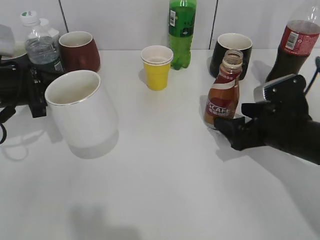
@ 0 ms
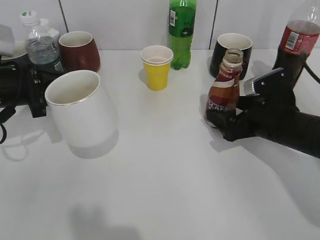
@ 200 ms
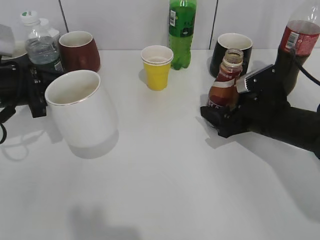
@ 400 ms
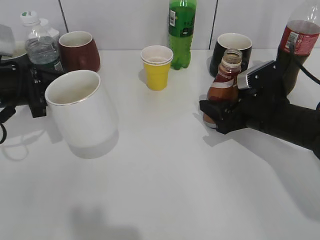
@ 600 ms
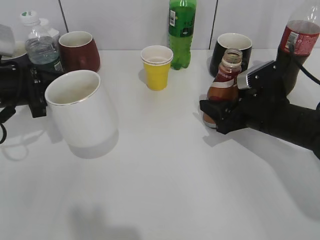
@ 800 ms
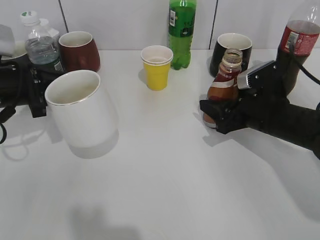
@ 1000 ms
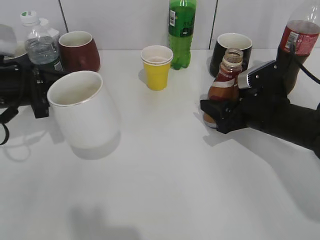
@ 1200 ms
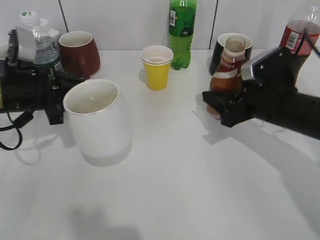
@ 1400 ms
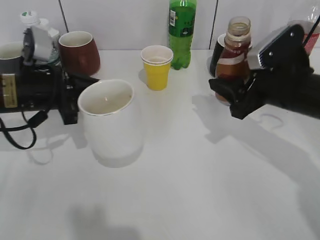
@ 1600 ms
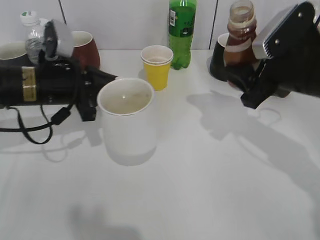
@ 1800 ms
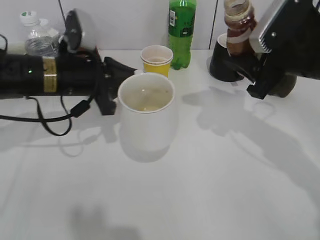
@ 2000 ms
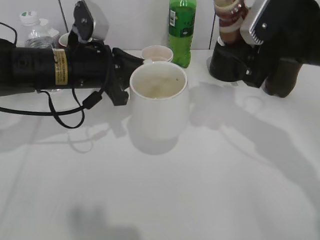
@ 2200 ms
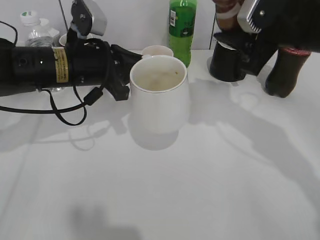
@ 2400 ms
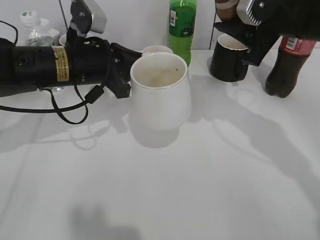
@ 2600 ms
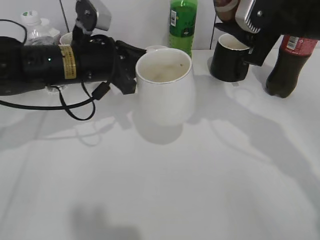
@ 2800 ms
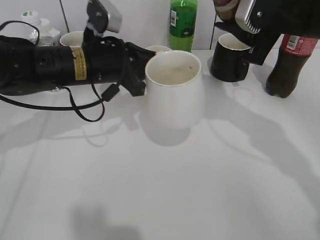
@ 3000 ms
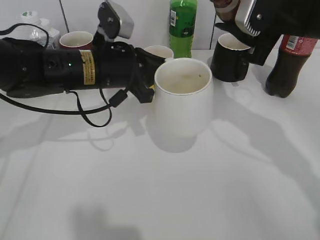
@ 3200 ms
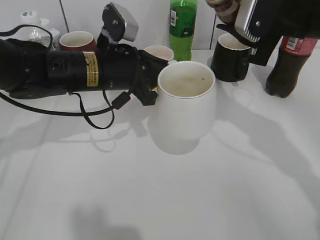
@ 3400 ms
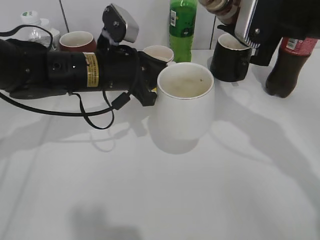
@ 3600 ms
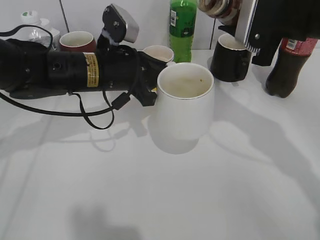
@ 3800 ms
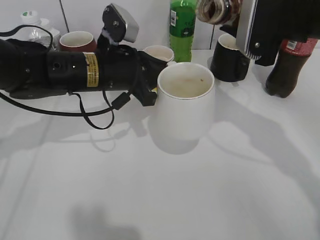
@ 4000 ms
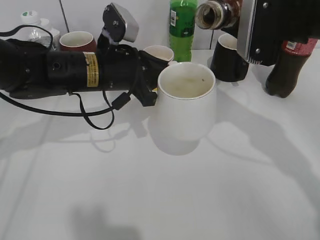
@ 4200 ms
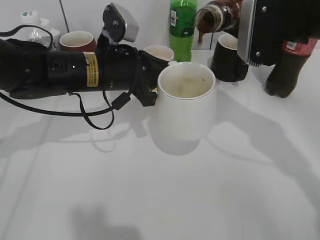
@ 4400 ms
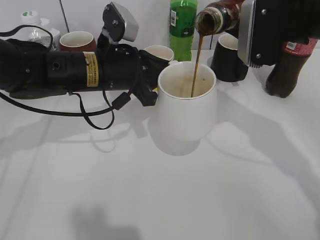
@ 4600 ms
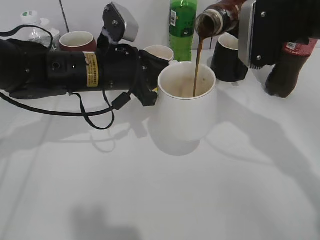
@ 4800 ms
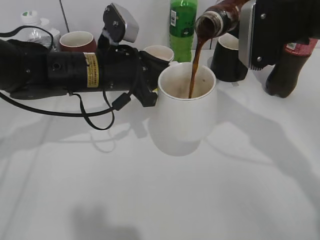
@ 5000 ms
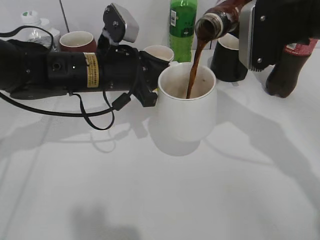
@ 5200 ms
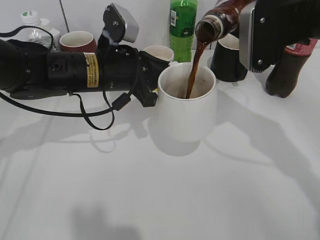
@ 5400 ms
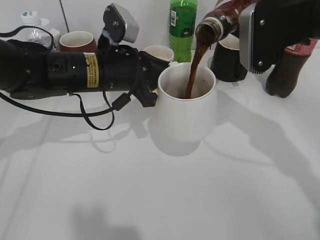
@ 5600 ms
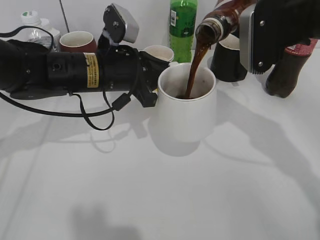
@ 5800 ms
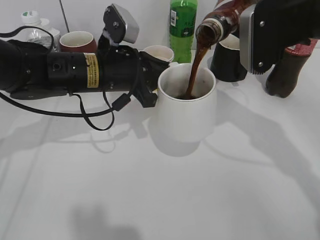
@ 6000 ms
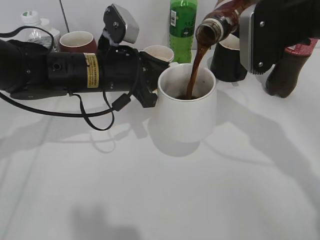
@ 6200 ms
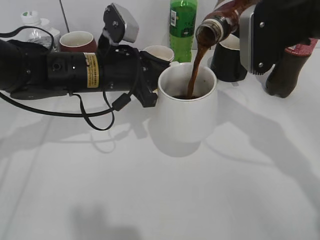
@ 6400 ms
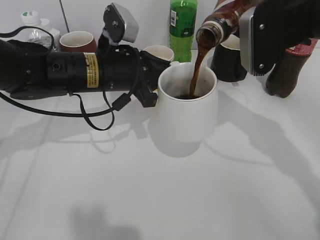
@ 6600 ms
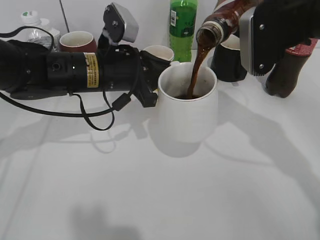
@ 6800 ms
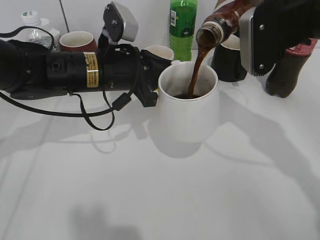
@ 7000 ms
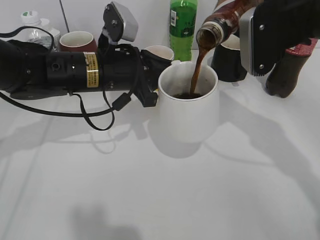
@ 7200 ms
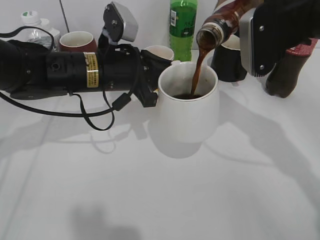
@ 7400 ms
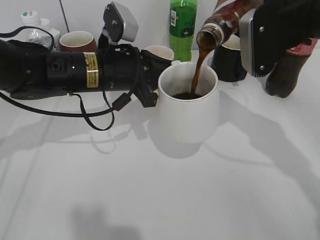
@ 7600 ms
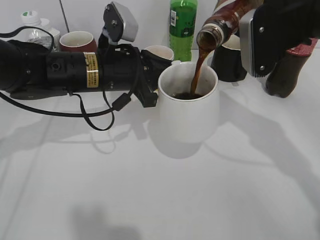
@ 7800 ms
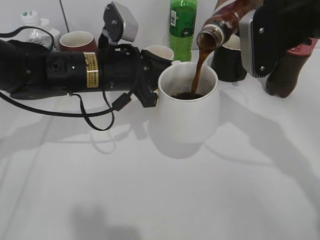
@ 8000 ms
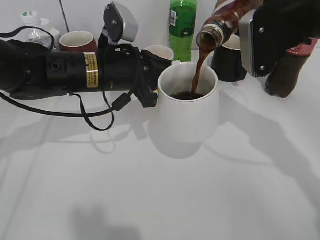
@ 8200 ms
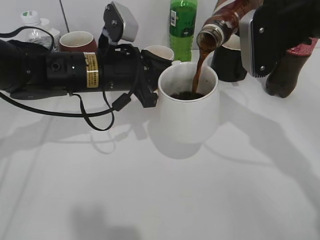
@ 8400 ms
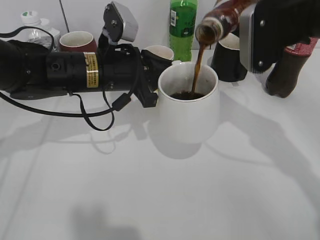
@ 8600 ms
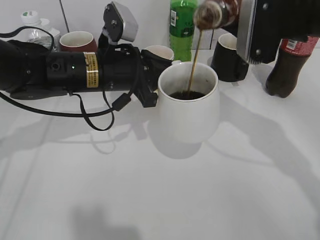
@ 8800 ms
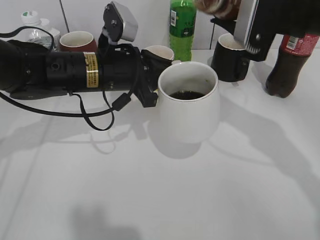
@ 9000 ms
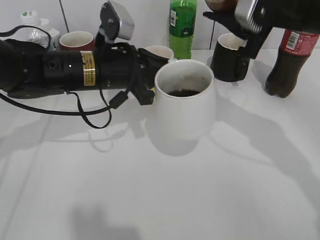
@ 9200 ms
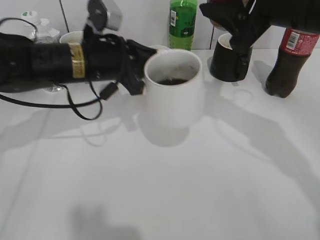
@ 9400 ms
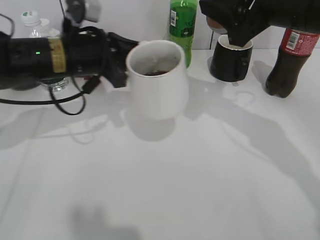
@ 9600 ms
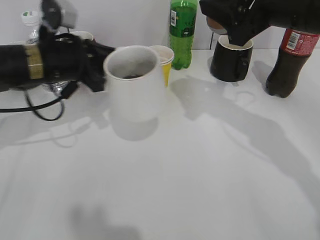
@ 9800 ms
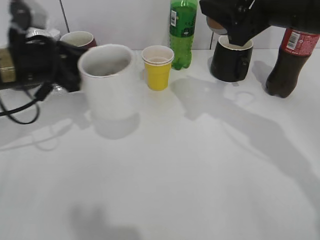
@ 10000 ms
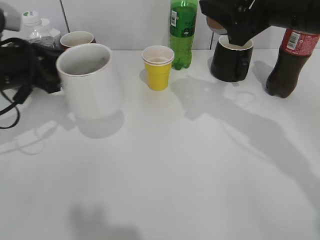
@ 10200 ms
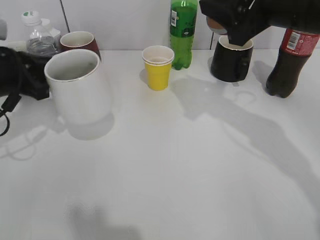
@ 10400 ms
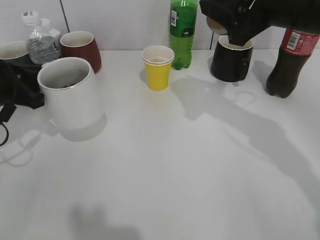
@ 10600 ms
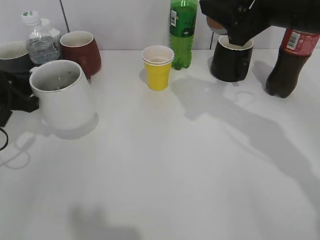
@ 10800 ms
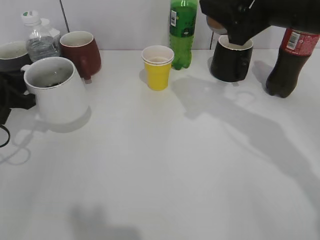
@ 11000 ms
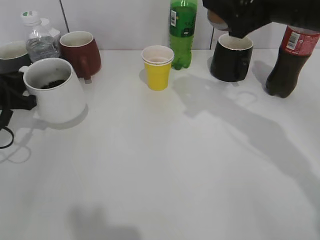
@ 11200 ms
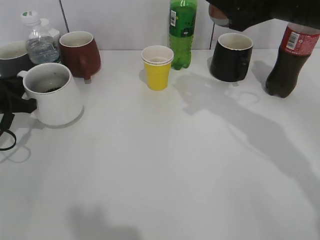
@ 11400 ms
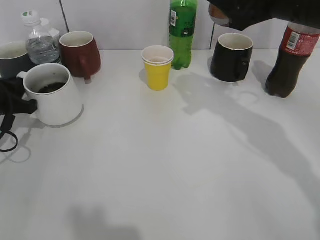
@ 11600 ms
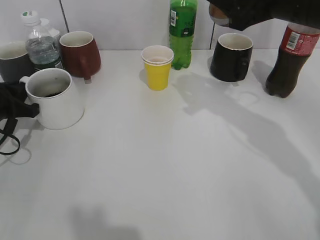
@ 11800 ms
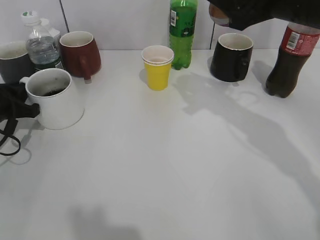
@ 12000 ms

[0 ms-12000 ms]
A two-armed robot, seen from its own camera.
Step, 1200 ms to 8800 ms: Pour the coffee from bottle to cup with right gripper.
0 ms to 1600 ms: The right gripper travels upward by approximately 5 cm, and closes.
1600 ms to 3000 ms: The left gripper moves to the right, roughly 10 cm, while the right gripper heads upward, covering about 10 cm.
4400 ms to 6000 ms: The grippers stay close to where they were, moving slightly.
6000 ms to 7600 ms: The two grippers keep their place.
9000 ms to 10400 ms: The left gripper moves to the left, approximately 15 cm.
10400 ms to 12000 ms: The left gripper goes about 10 cm downward.

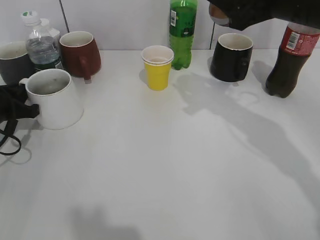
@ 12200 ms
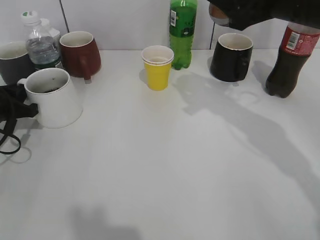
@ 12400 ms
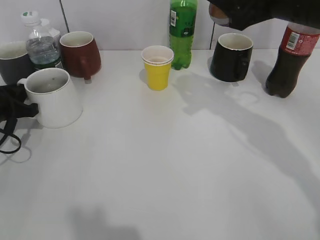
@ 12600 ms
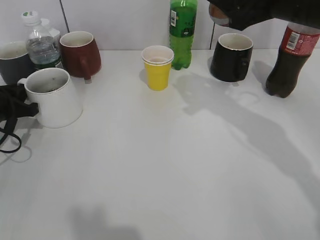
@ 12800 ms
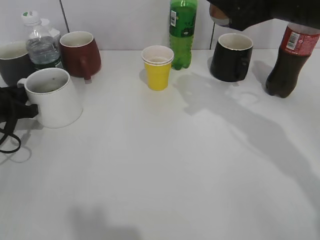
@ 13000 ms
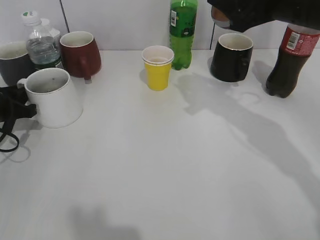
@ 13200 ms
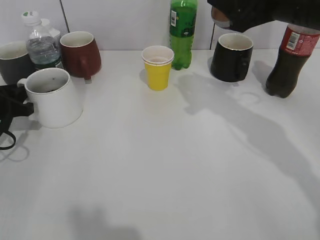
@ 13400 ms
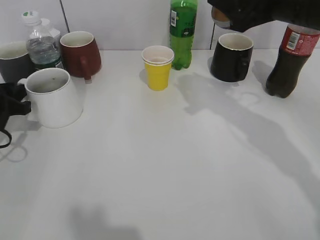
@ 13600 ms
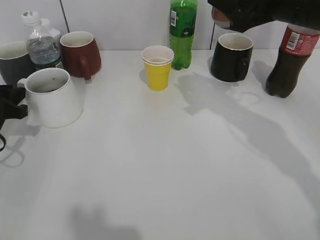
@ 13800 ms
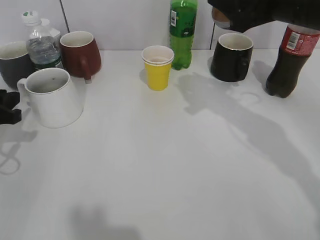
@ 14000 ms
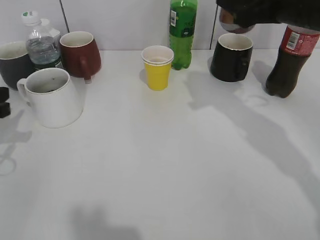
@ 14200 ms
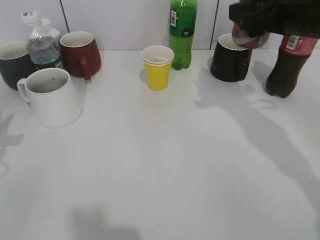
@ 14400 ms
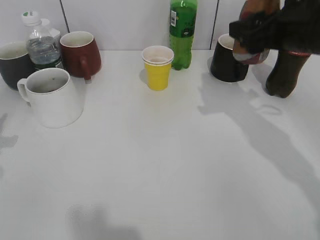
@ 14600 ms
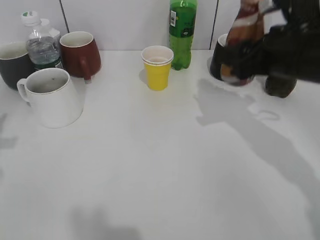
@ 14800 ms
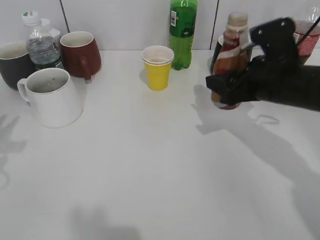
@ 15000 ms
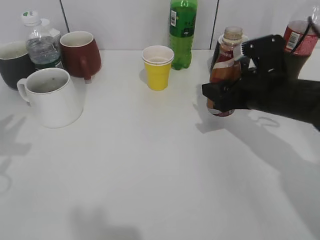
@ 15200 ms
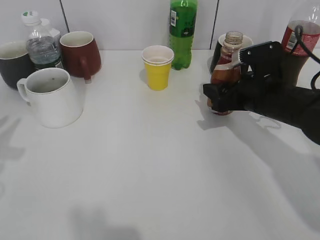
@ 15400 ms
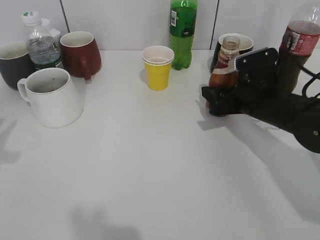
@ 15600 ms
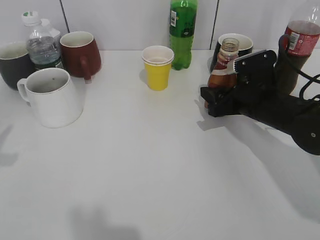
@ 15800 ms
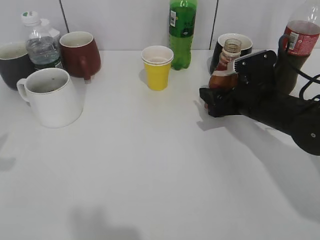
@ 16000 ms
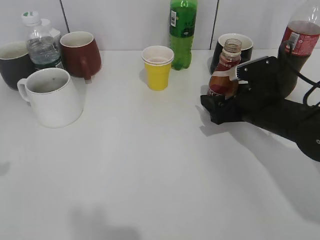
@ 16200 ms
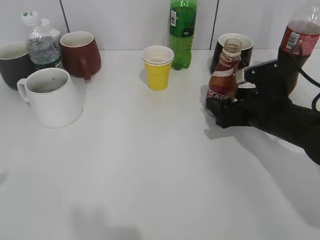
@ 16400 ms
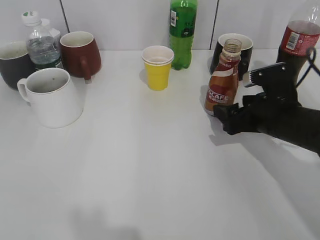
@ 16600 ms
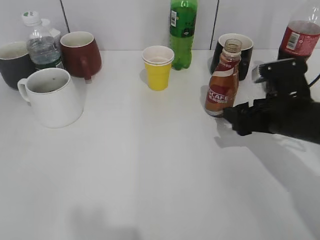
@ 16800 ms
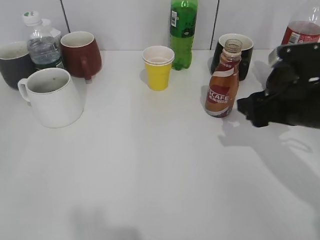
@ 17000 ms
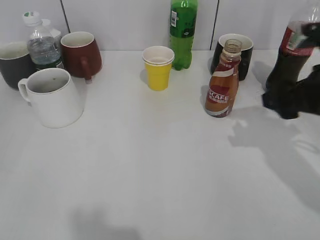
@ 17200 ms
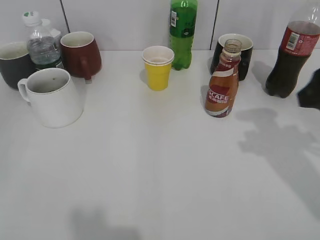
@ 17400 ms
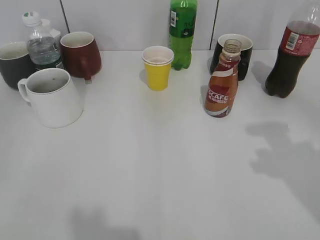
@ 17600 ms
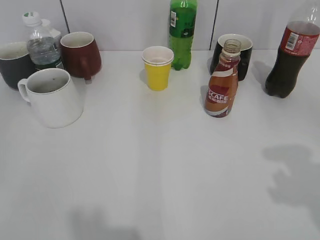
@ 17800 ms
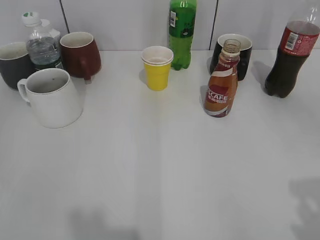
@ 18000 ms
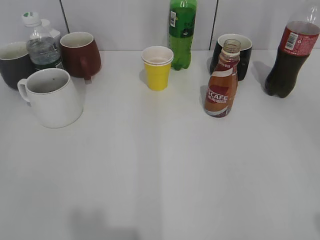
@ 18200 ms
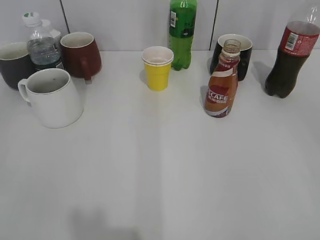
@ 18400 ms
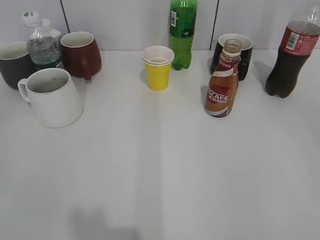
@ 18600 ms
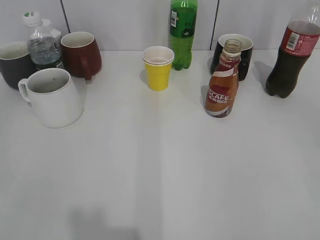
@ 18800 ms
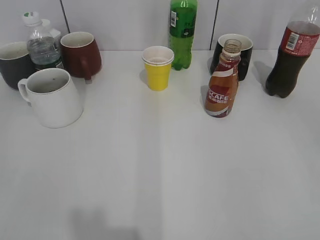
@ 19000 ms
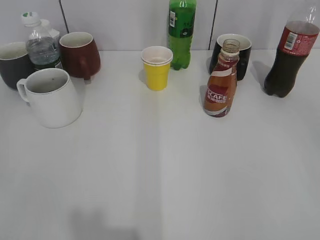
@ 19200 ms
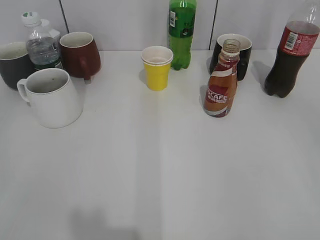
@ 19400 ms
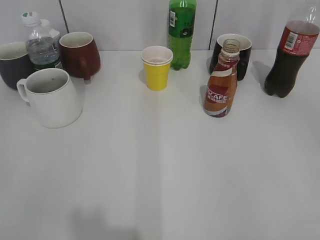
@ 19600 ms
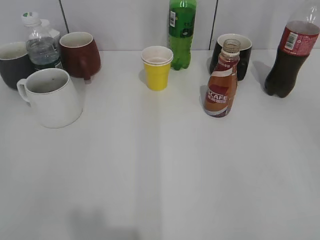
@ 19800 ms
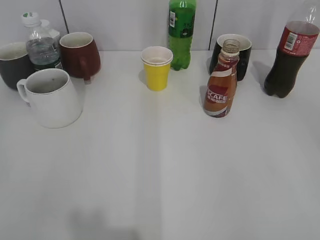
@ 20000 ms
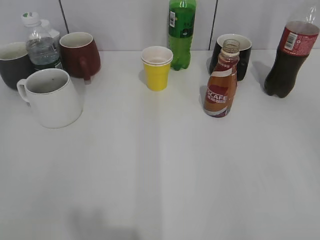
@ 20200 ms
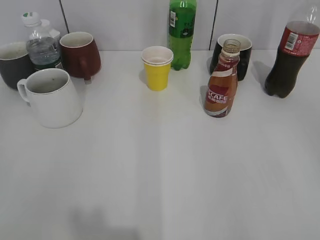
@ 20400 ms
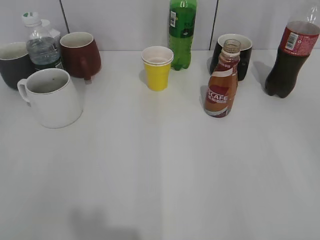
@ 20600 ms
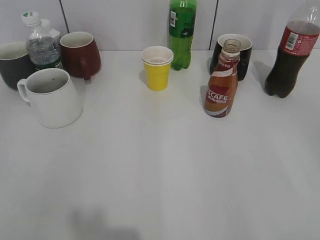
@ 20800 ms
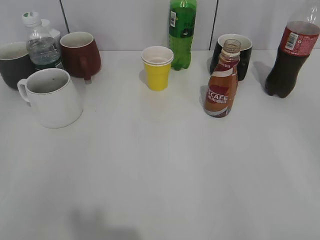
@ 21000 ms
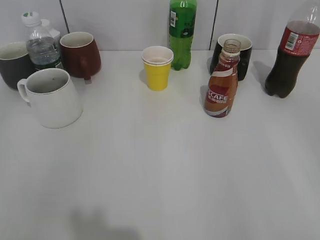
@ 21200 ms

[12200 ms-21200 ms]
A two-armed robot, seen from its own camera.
Step, 14000 ms to 16600 ms: Place the coffee bottle on the table with right gripper.
12200 ms to 13800 ms: The left gripper opens.
13800 ms to 15200 ms: The left gripper goes approximately 15 cm upward and backward, while the right gripper heads downward, covering approximately 15 cm.
15200 ms to 16600 ms: The left gripper heads backward, covering about 10 cm; the right gripper opens up.
16600 ms to 18200 ms: The right gripper goes approximately 35 cm backward, upward and to the right, and closes, while the left gripper shifts roughly 10 cm backward.
